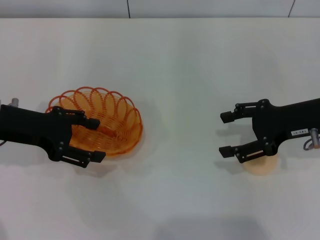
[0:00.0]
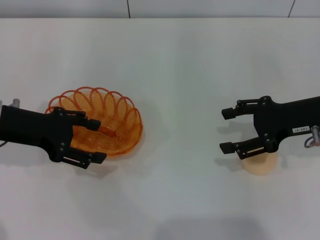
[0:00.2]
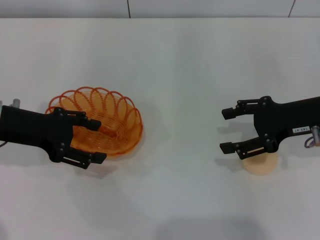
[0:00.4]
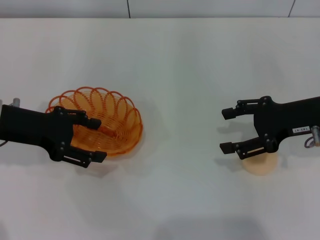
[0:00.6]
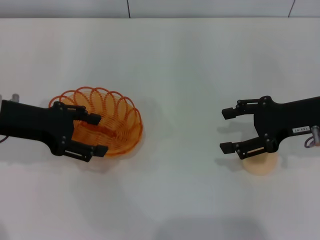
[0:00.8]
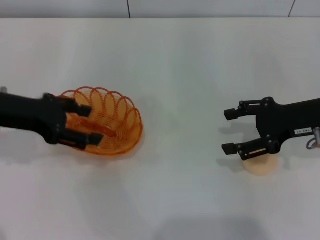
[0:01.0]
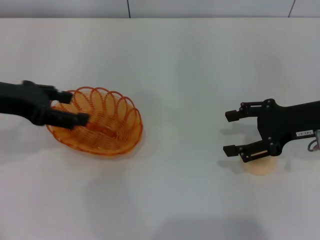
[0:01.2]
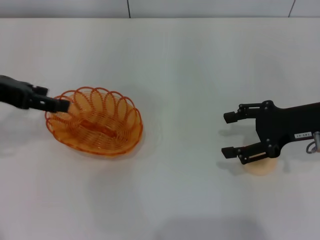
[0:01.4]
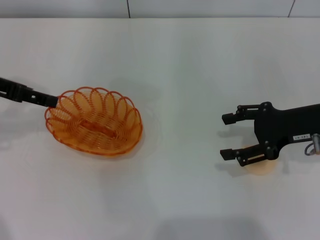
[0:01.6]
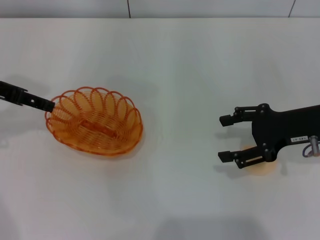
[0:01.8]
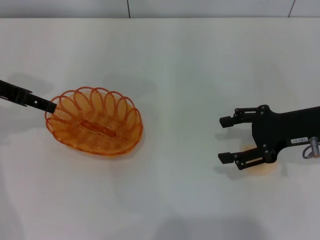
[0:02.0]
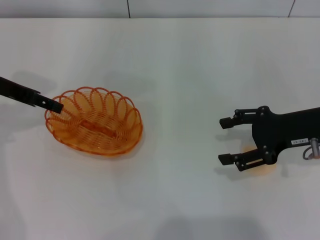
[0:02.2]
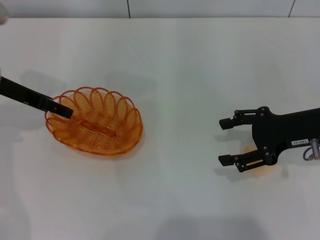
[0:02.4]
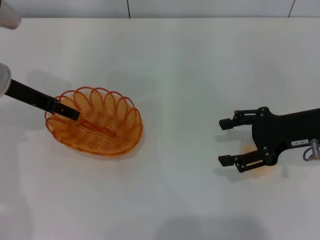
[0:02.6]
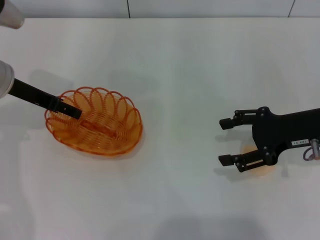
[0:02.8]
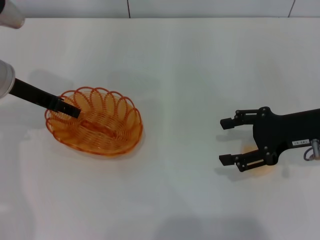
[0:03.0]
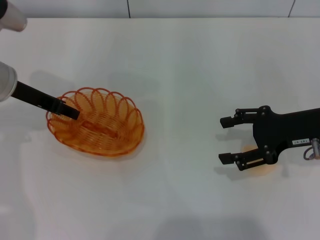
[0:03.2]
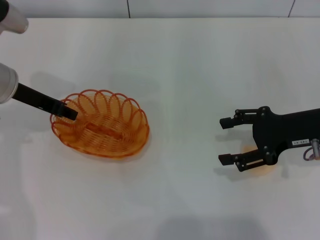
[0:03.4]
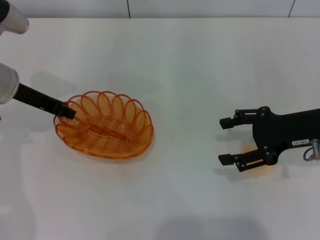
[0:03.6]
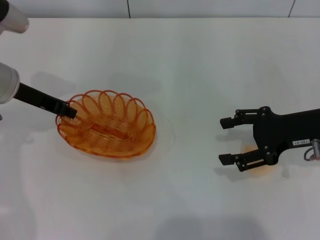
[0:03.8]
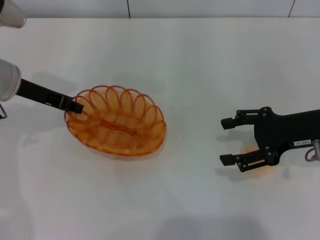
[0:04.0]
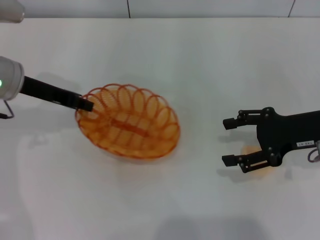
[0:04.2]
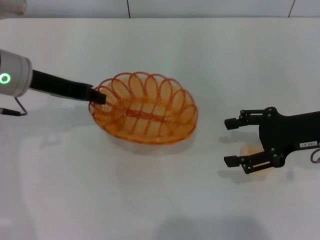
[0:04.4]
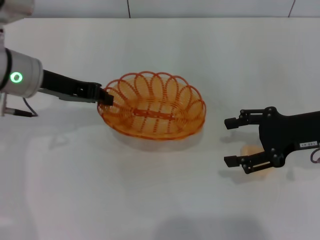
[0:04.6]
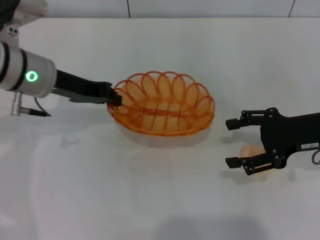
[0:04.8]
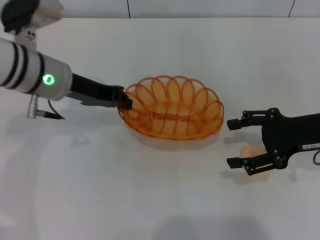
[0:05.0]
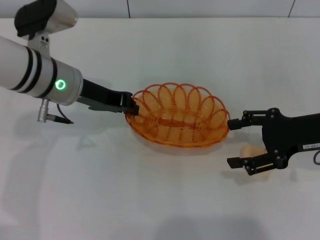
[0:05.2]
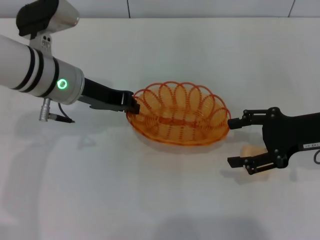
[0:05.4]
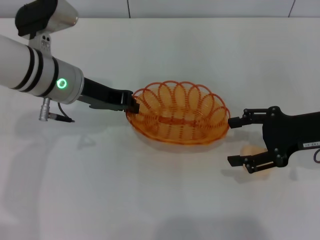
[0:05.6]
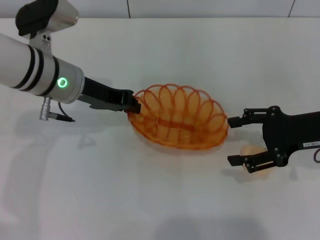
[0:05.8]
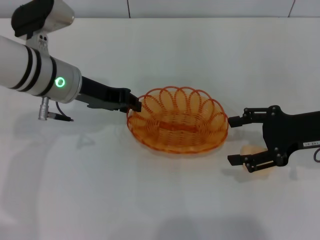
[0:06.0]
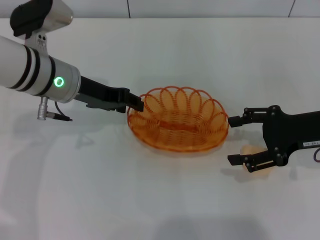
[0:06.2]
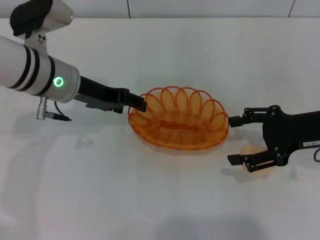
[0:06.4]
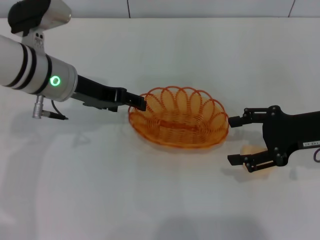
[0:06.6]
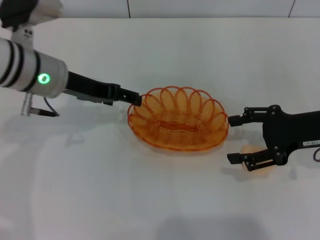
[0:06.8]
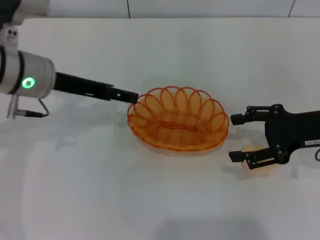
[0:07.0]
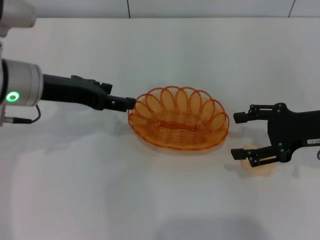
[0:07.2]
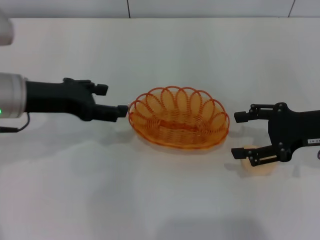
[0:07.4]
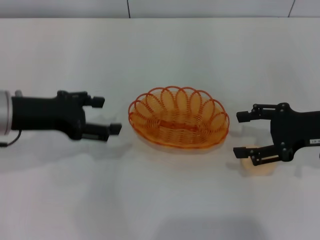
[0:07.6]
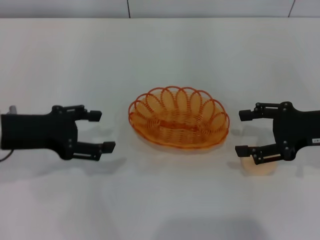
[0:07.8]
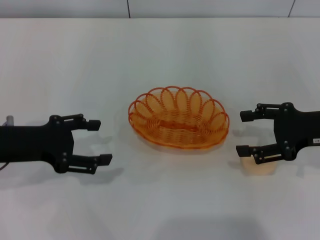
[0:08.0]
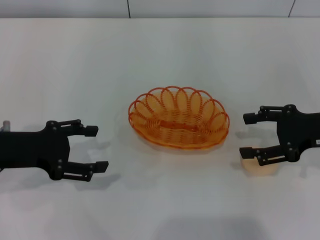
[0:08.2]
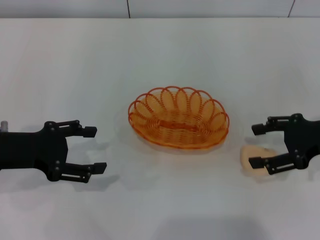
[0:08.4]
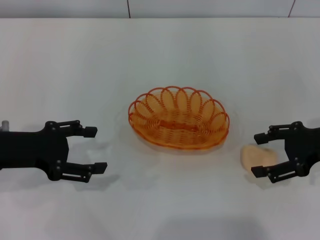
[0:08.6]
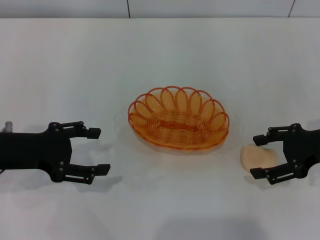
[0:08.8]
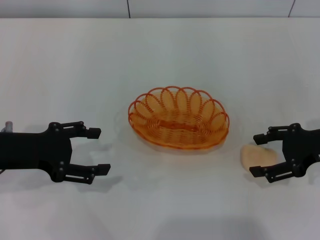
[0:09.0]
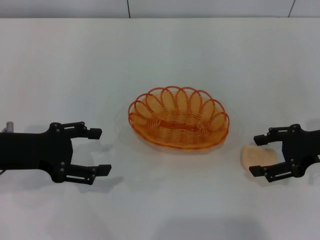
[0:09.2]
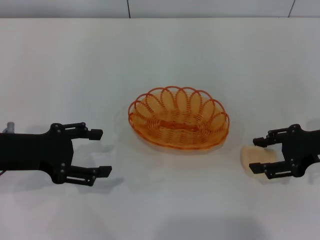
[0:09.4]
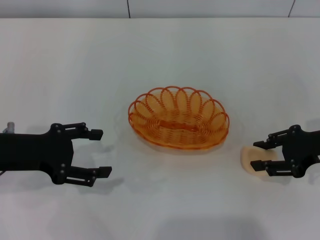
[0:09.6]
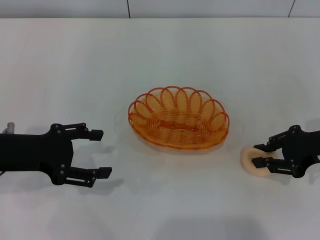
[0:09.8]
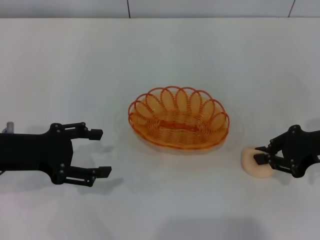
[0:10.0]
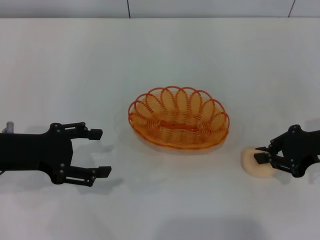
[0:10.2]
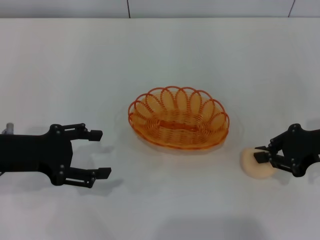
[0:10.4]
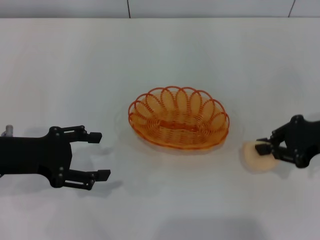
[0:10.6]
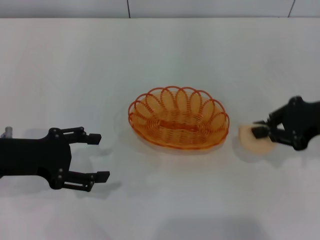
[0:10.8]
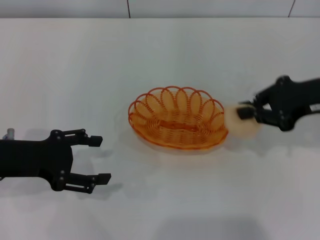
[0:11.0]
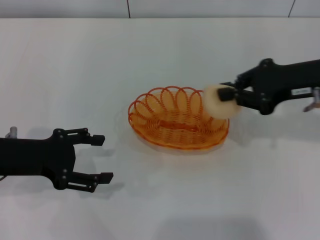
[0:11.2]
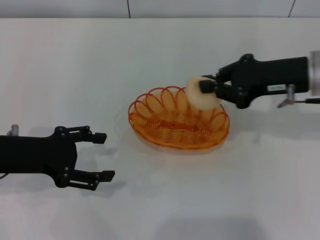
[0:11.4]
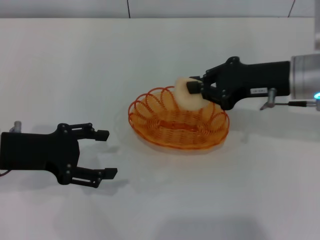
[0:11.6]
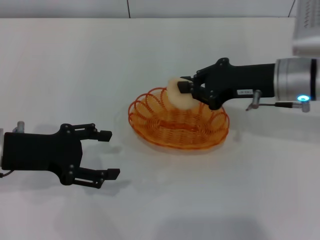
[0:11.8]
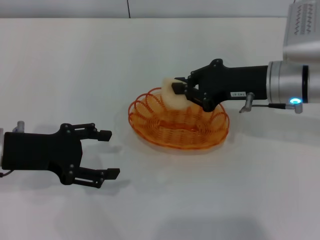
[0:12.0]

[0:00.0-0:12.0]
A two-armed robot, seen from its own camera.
Step, 0:00.0 to 0:04.8: Pick up the basket with the left gripper.
Step, 0:05.0 to 0:07.2: Place the basket in the center of view with the left gripper.
Step, 0:07.4 to 0:10.6: Pick up the egg yolk pastry with the right gripper.
0:00.0 to 0:01.6: The left gripper travels upward by approximately 5 cm.
0:01.6 to 0:03.0: The left gripper travels downward by approximately 5 cm.
0:03.0 to 0:04.4: The left gripper closes up.
0:04.4 to 0:06.0: The left gripper moves to the right, some 5 cm.
0:06.0 to 0:07.6: The left gripper goes about 10 cm to the left and backward, and opens up.
0:07.6 to 0:09.0: The left gripper ends up some 5 cm from where it was.
0:09.0 to 0:10.4: The right gripper closes its fingers.
0:10.4 to 0:12.0: The right gripper shifts about 10 cm to the left.

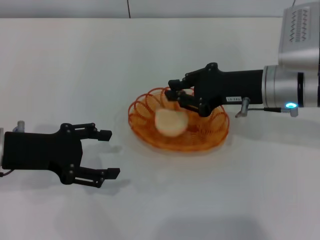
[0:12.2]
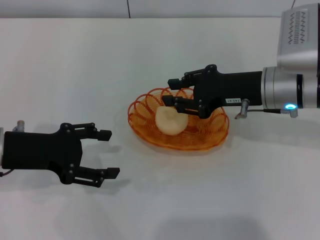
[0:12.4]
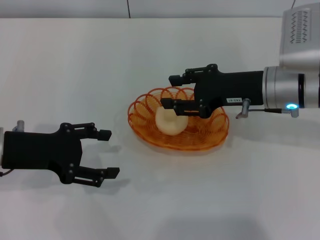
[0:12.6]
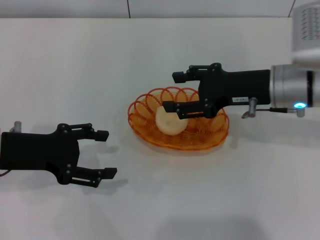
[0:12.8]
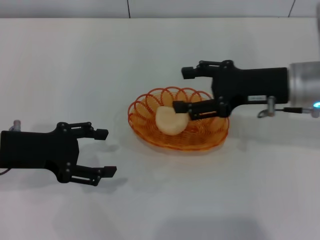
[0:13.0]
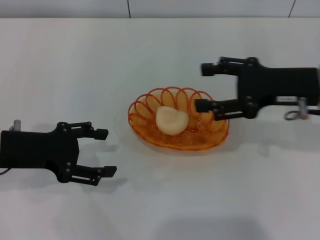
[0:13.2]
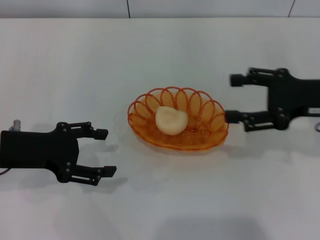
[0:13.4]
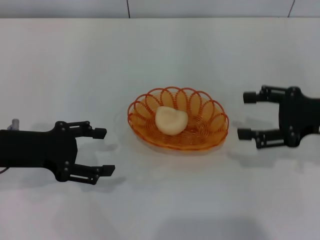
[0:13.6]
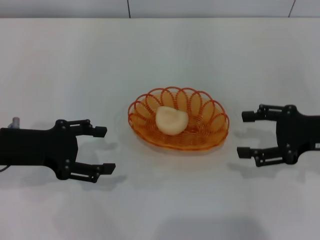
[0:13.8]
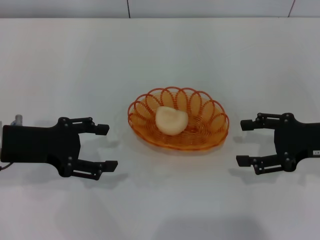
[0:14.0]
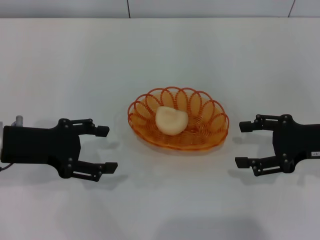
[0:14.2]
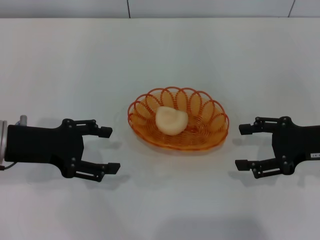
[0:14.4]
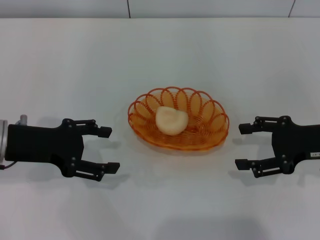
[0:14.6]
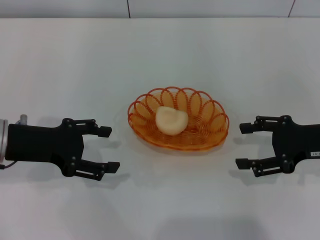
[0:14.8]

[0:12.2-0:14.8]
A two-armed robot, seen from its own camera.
0:12.2 to 0:13.4: The right gripper moves to the right, about 10 cm, and opens up.
0:13.4 to 0:14.8: The right gripper shifts by approximately 5 cm.

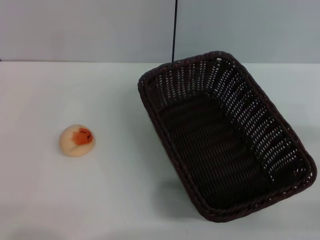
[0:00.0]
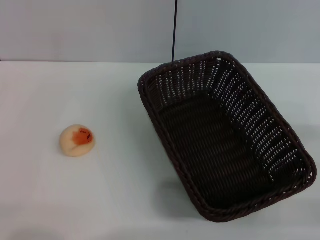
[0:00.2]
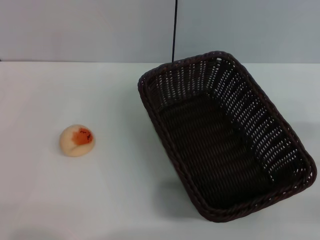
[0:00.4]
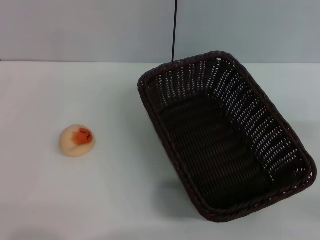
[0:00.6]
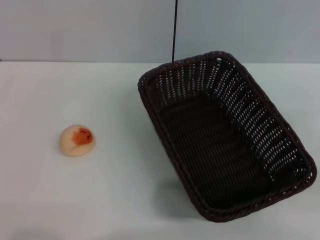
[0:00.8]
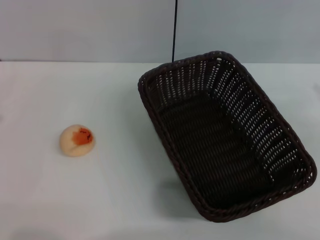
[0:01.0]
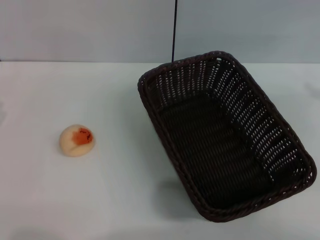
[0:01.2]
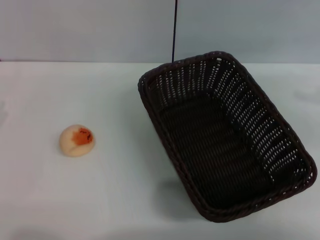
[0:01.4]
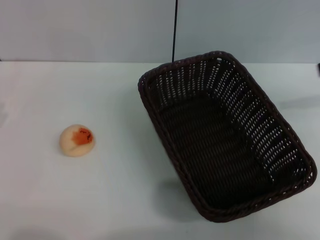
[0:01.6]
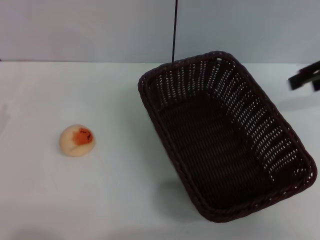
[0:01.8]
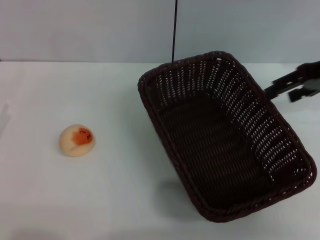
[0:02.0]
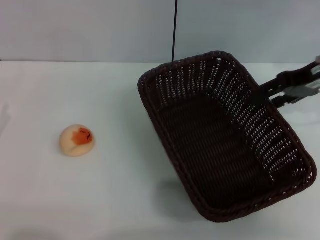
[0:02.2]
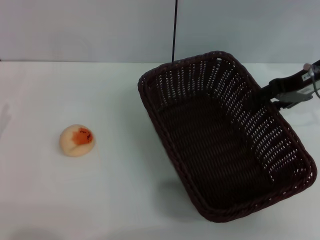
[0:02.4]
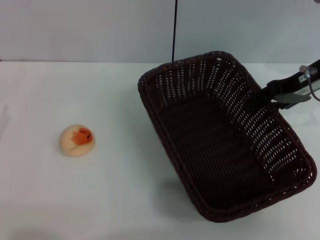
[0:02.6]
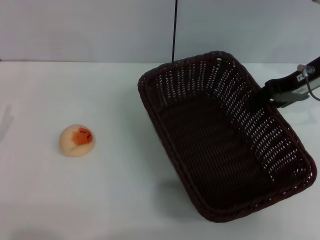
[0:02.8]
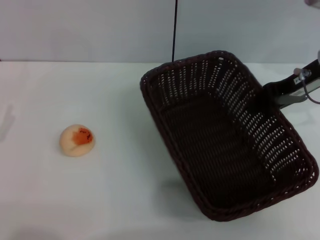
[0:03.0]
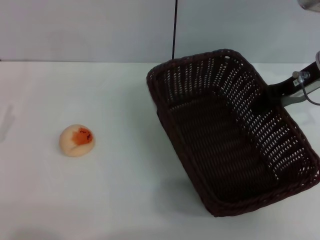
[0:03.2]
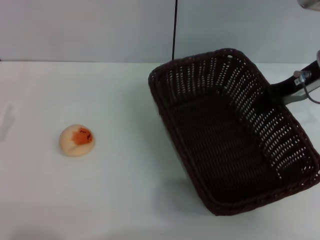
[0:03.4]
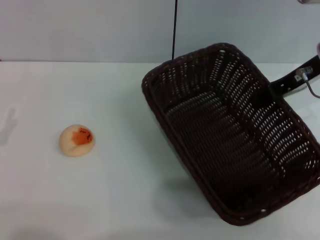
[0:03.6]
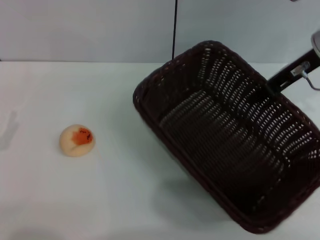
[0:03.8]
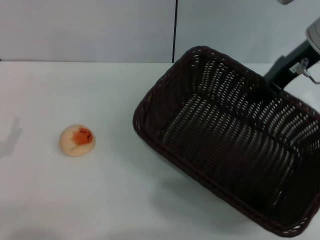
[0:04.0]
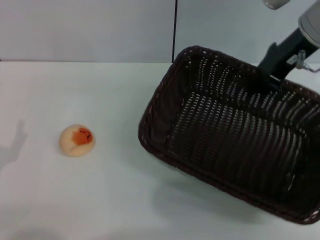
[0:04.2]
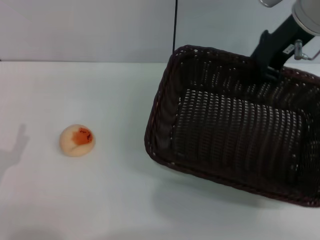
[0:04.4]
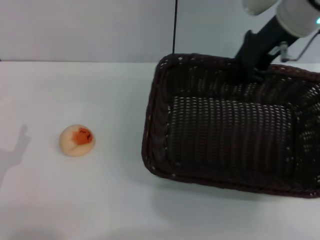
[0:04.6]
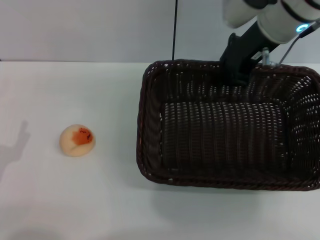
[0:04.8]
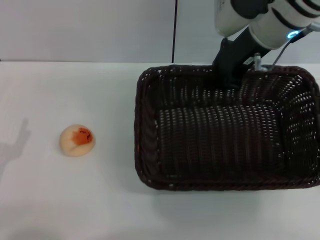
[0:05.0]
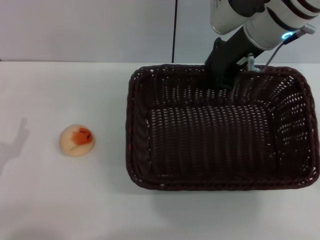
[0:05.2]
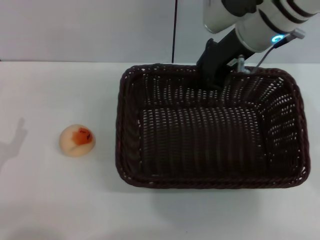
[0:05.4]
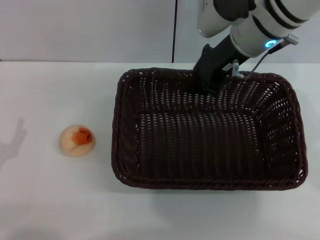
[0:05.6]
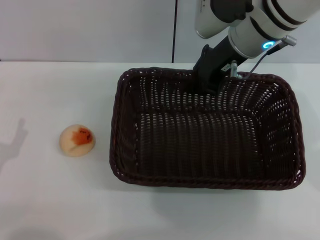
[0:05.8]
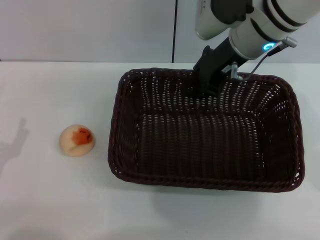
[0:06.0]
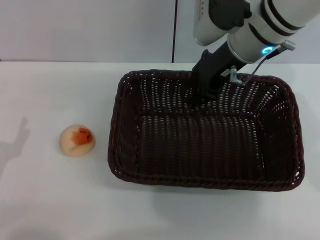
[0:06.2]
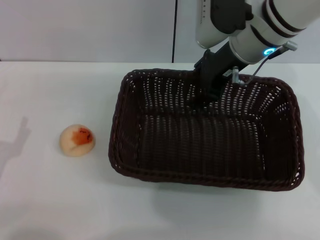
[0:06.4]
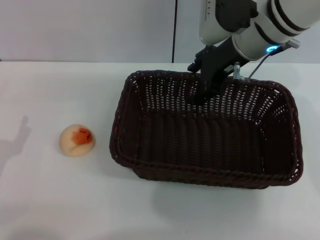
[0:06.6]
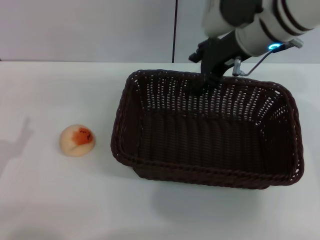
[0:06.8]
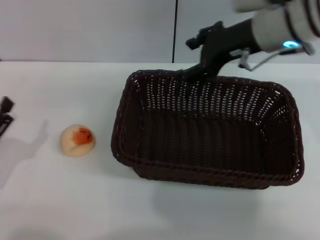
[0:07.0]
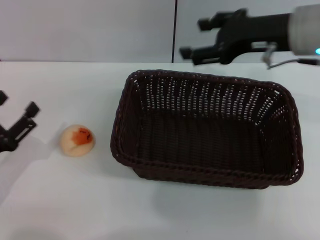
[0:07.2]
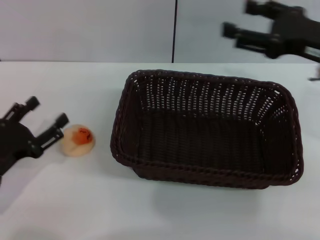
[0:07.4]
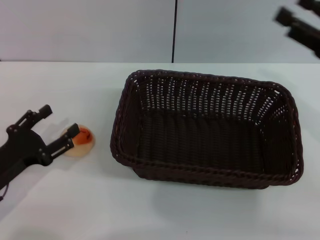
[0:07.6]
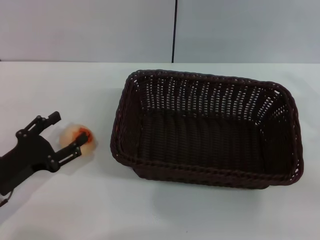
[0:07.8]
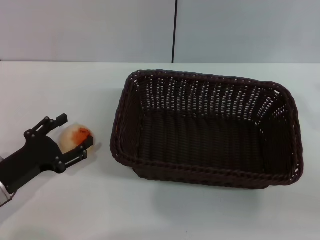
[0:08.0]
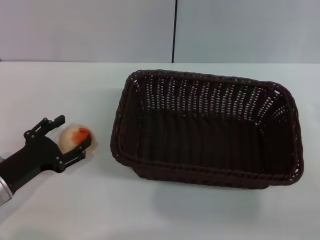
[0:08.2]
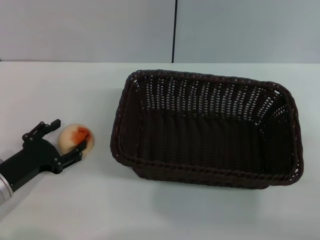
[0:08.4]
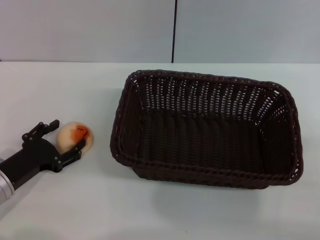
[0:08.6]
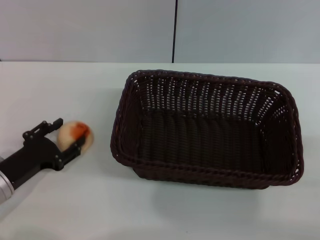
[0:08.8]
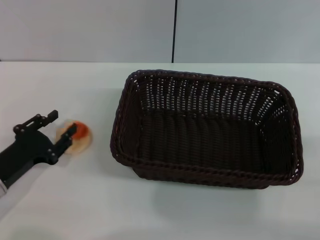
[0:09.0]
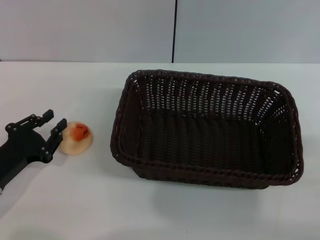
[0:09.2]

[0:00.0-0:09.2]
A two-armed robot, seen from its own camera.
Step, 0:00.0 to 0:07.0: Move the basket to the center of view with the right gripper.
0:00.0 to 0:01.6: The right gripper is displaced upward and forward by roughly 25 cm.
0:01.6 to 0:03.0: The right gripper goes roughly 15 cm downward and to the left, and closes.
0:03.0 to 0:04.6: The left gripper ends up roughly 5 cm from where it was, while the right gripper shifts some 10 cm to the left and upward, and closes its fingers.
0:04.6 to 0:06.2: The right gripper shifts by roughly 5 cm.
0:06.2 to 0:07.6: The right gripper shifts roughly 25 cm to the right and backward, and opens up.
0:07.6 to 0:09.2: The right gripper heads backward, downward and to the right, covering approximately 15 cm.
